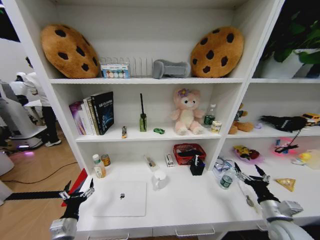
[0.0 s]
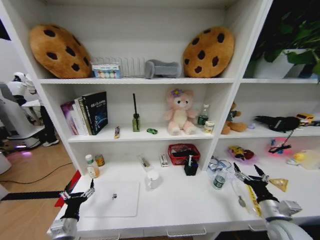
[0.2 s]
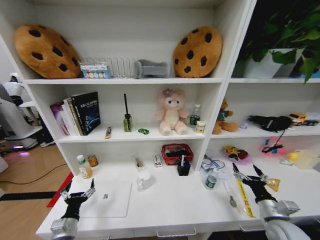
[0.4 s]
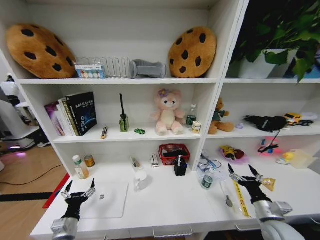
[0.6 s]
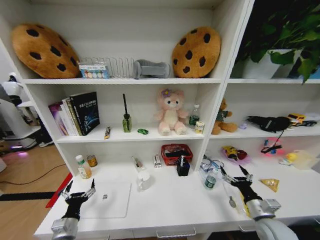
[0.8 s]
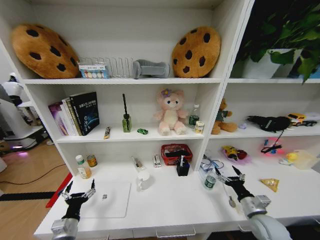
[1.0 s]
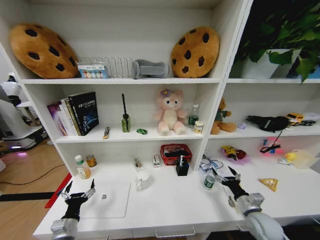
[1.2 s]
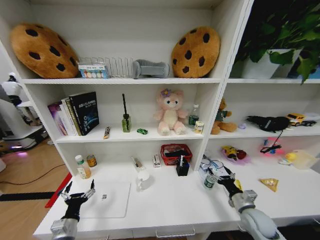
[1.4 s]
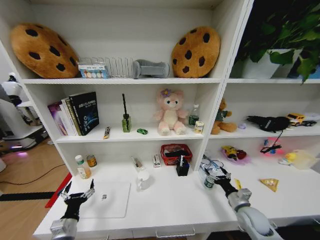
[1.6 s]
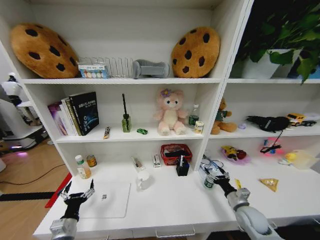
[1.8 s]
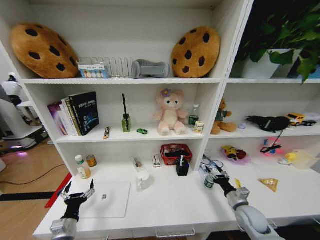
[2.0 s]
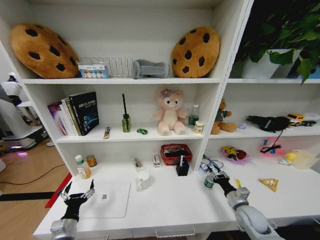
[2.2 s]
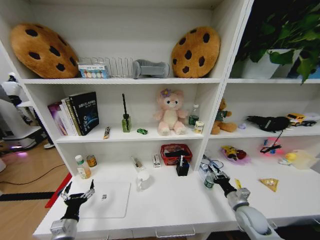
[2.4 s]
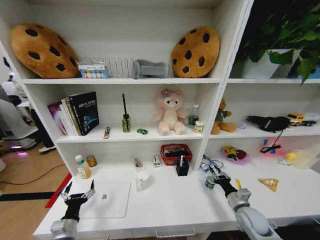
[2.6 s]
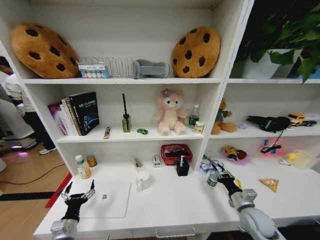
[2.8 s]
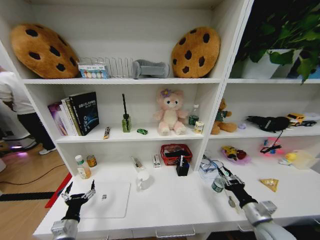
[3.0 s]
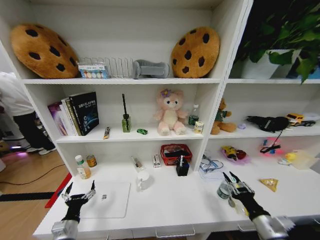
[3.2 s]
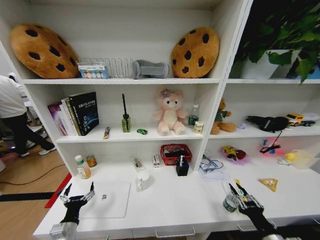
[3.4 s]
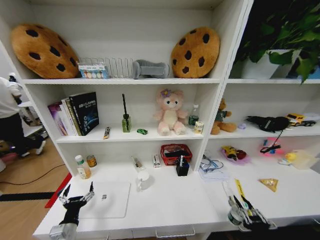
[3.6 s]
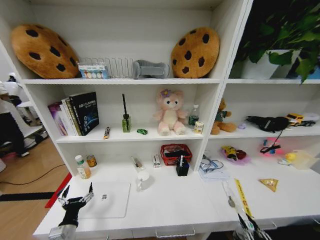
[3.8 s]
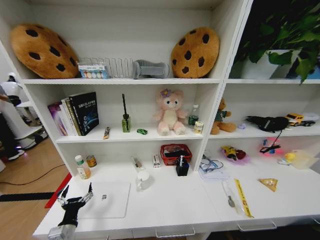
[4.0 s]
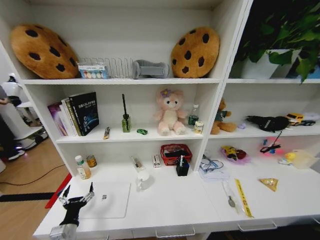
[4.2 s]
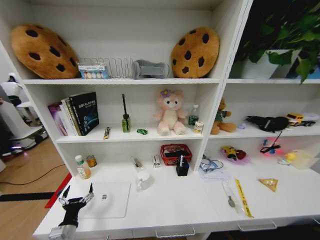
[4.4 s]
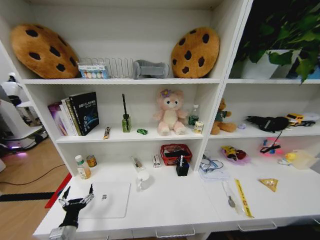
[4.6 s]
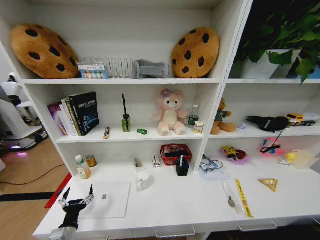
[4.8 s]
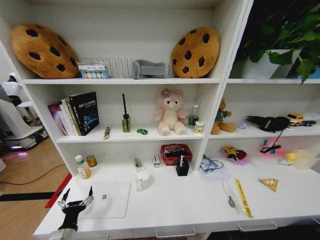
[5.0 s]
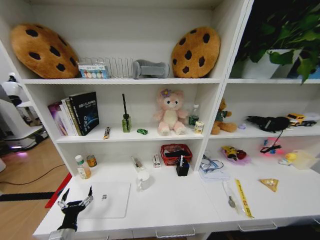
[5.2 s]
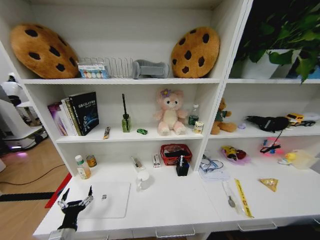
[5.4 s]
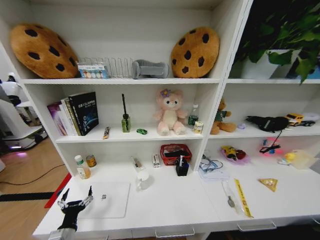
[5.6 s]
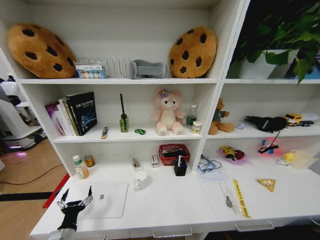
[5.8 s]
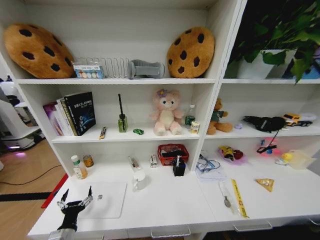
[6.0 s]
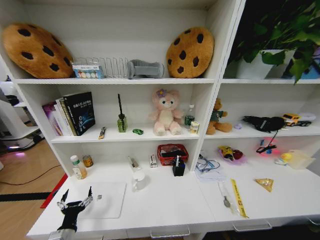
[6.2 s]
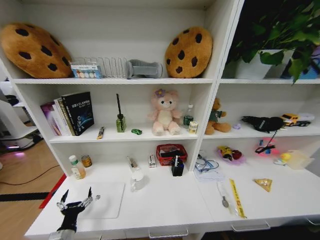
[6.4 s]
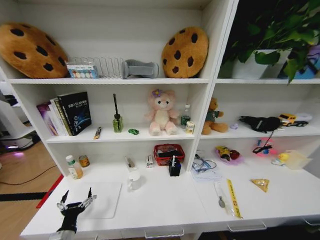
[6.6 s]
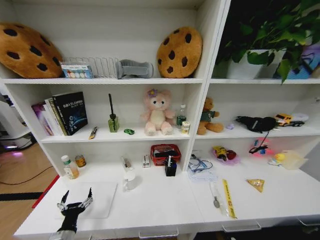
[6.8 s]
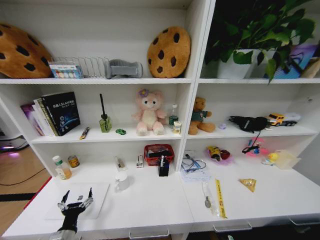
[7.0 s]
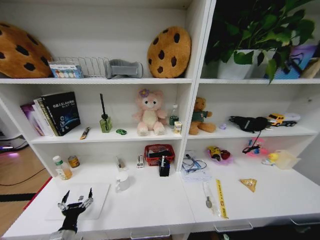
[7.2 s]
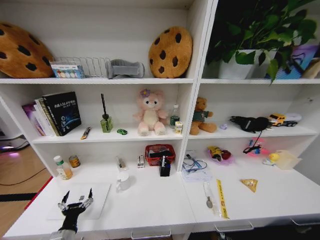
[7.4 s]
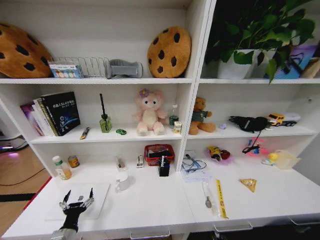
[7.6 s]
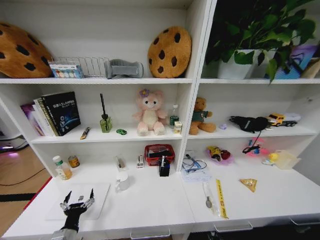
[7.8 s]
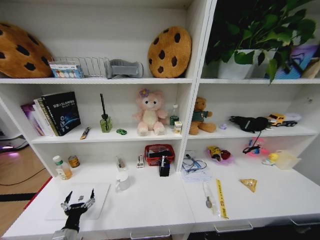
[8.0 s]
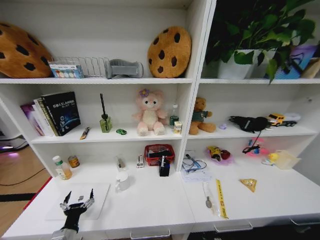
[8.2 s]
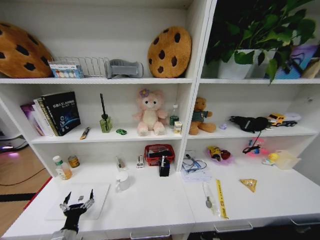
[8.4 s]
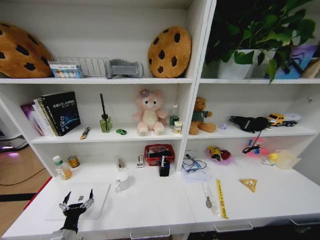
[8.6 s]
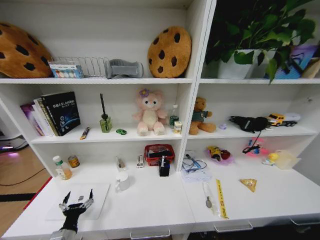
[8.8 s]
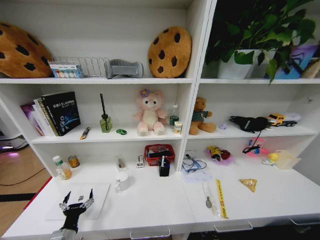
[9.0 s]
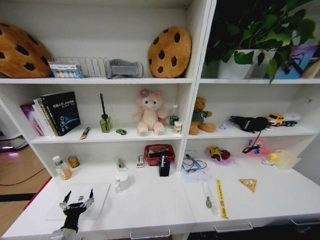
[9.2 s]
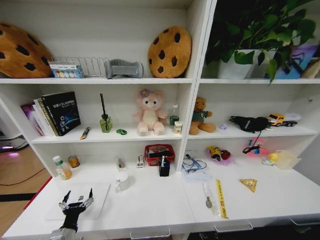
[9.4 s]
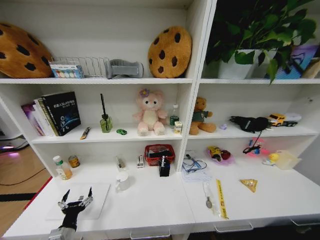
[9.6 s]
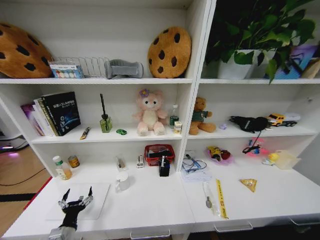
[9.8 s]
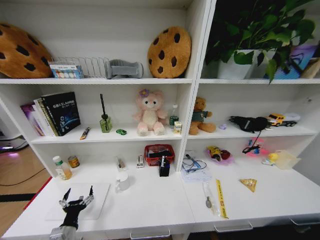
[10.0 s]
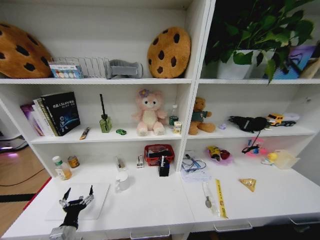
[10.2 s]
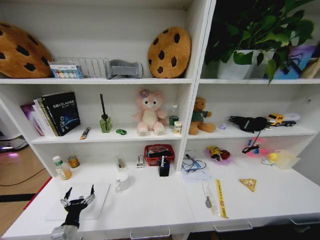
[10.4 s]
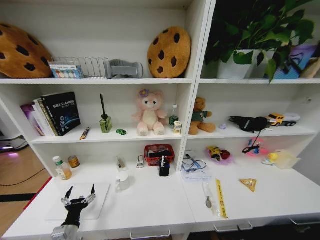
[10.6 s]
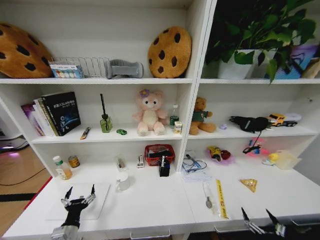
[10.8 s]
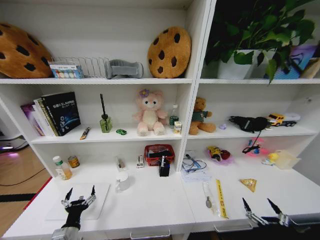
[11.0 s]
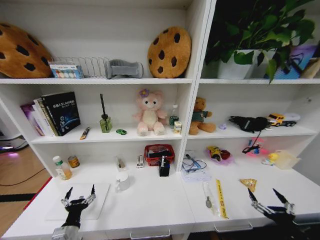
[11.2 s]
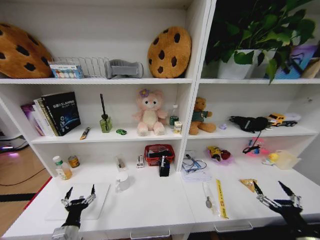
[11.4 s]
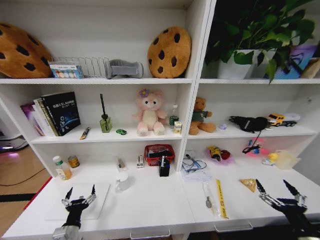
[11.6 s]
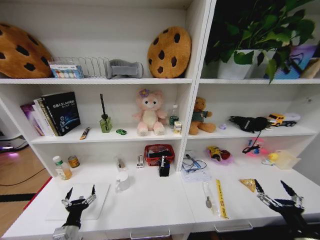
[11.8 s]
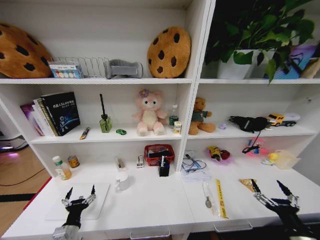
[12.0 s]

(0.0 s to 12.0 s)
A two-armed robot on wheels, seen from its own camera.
Task of the whole recording: Organize the objects on the table.
0.0 s - 1.6 s: The right gripper travels forward and downward by about 10 cm.
1.6 s - 3.0 s: The right gripper travels backward and upward by roughly 10 cm, and closes up.
3.0 s - 4.4 s: The right gripper shifts roughly 35 cm backward and downward.
4.4 s - 6.0 s: The right gripper heads downward, forward and to the right, covering some 15 cm.
6.0 s - 7.6 s: The right gripper heads forward and downward, covering roughly 10 cm.
9.0 s - 10.4 s: The right gripper shifts approximately 25 cm backward and upward, and opens up.
10.4 s - 12.0 s: The right gripper is displaced upward and forward by roughly 30 cm.

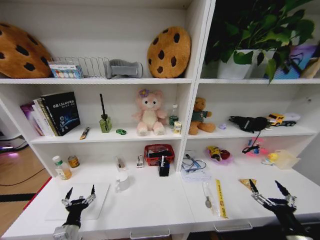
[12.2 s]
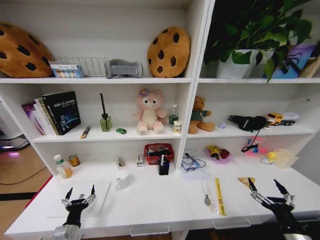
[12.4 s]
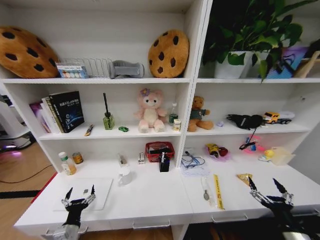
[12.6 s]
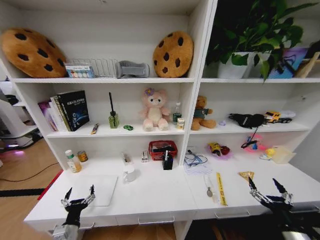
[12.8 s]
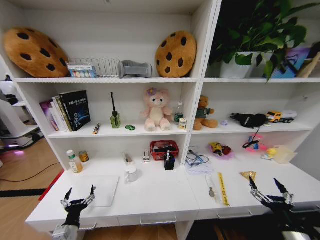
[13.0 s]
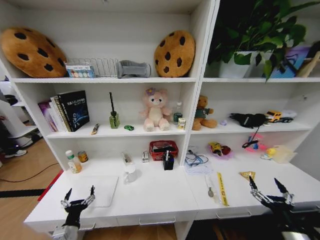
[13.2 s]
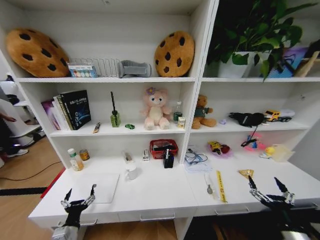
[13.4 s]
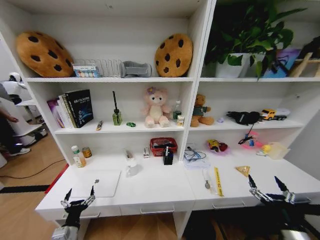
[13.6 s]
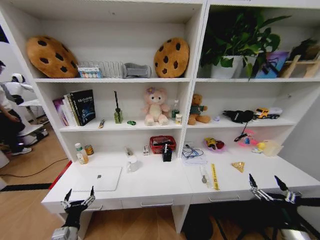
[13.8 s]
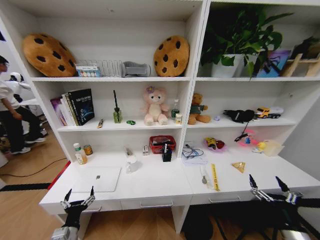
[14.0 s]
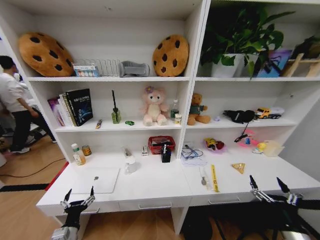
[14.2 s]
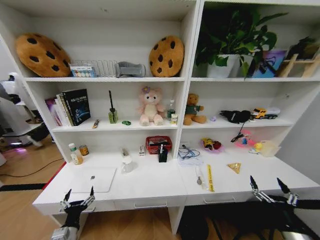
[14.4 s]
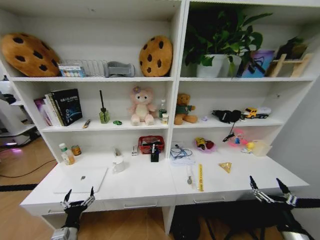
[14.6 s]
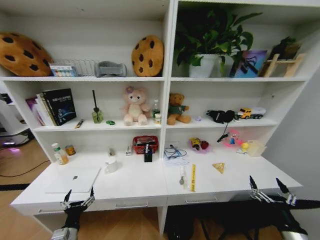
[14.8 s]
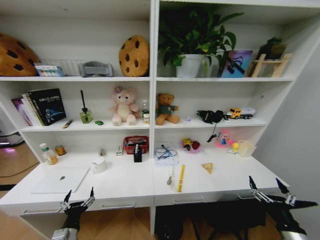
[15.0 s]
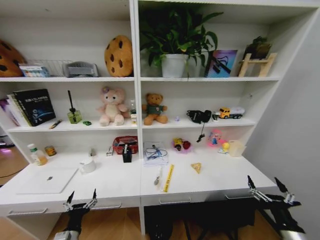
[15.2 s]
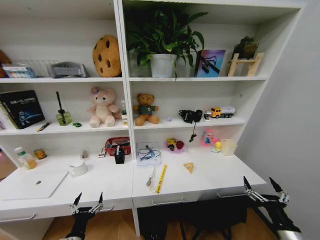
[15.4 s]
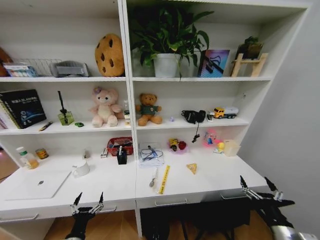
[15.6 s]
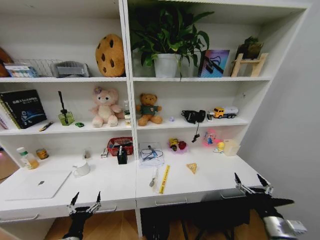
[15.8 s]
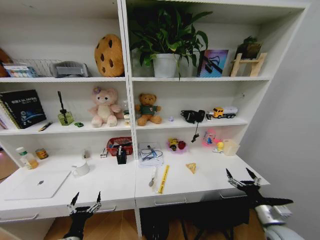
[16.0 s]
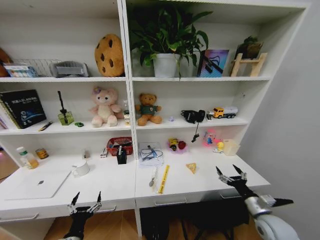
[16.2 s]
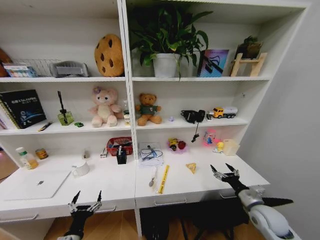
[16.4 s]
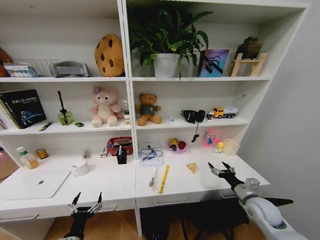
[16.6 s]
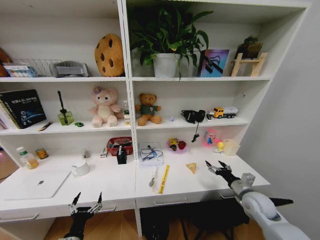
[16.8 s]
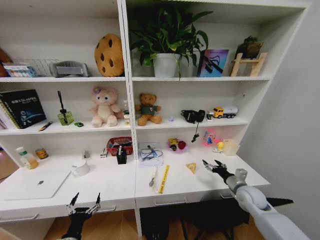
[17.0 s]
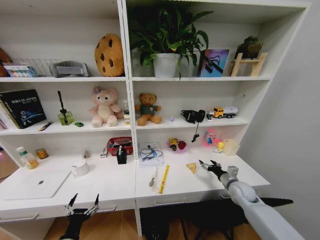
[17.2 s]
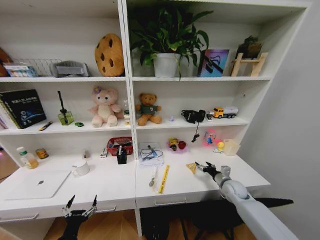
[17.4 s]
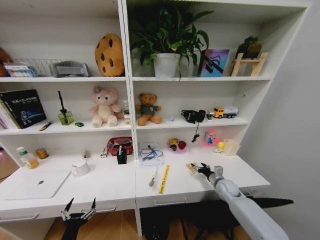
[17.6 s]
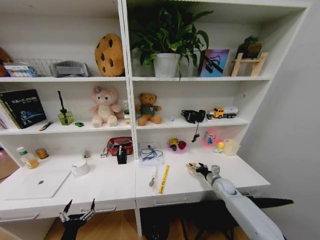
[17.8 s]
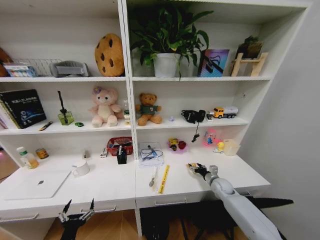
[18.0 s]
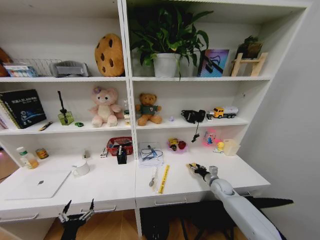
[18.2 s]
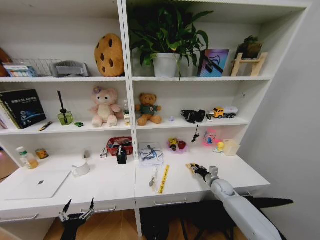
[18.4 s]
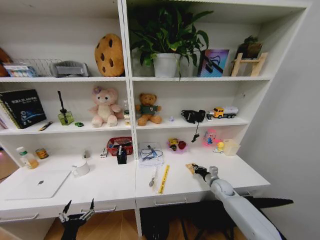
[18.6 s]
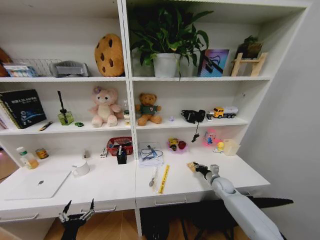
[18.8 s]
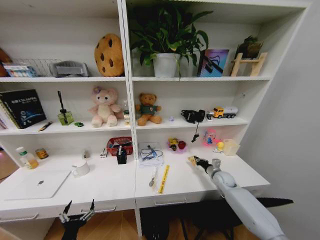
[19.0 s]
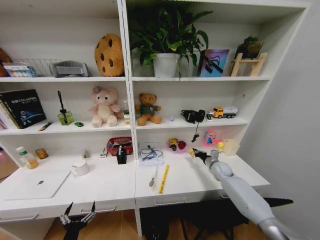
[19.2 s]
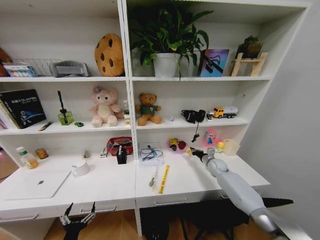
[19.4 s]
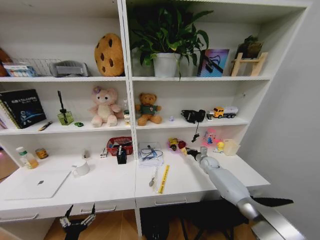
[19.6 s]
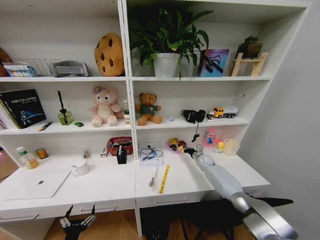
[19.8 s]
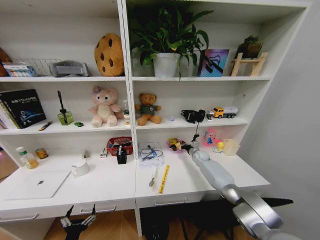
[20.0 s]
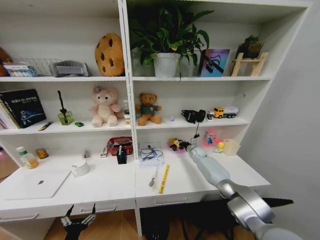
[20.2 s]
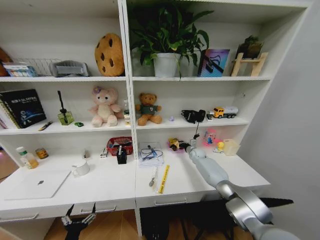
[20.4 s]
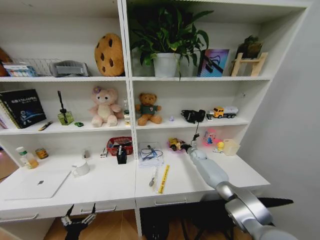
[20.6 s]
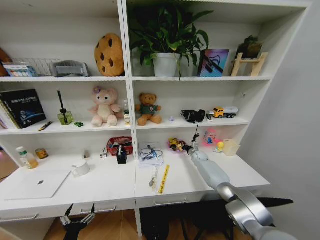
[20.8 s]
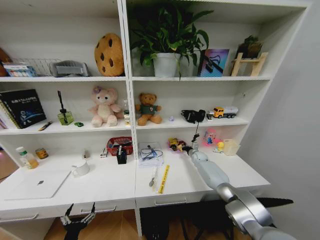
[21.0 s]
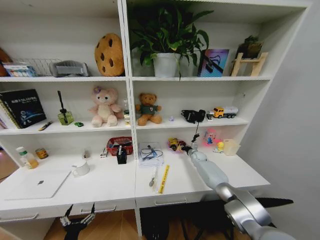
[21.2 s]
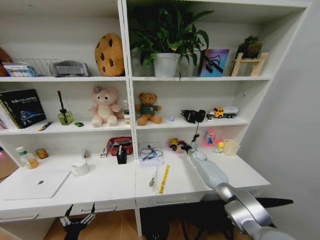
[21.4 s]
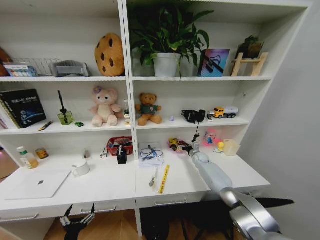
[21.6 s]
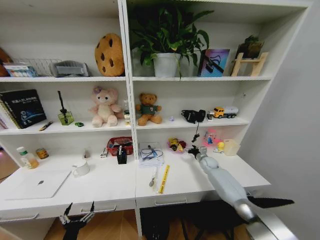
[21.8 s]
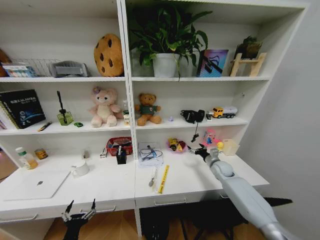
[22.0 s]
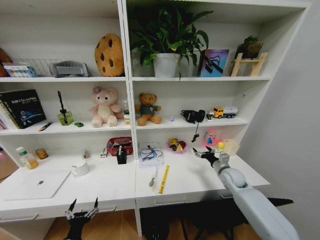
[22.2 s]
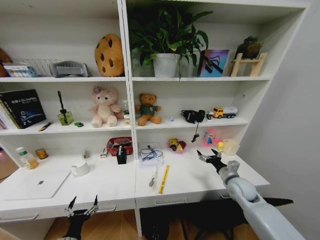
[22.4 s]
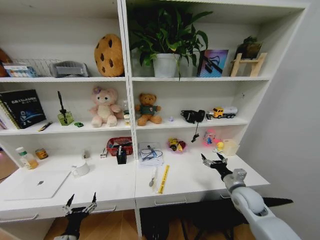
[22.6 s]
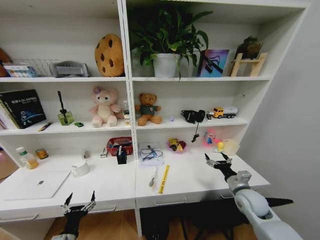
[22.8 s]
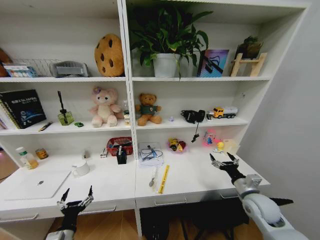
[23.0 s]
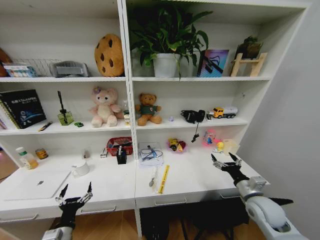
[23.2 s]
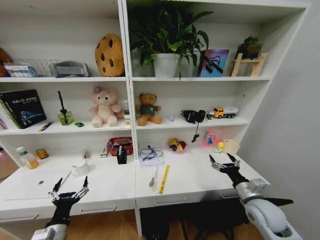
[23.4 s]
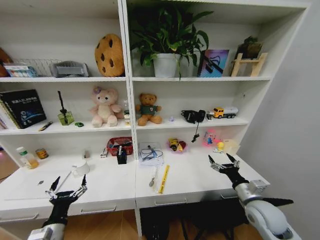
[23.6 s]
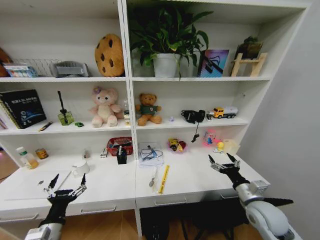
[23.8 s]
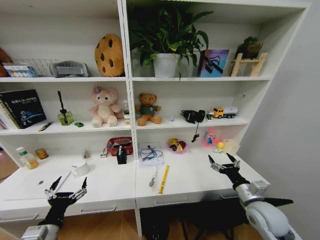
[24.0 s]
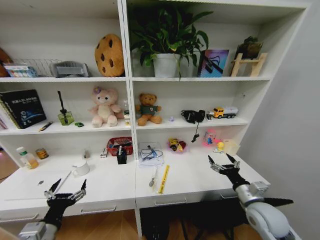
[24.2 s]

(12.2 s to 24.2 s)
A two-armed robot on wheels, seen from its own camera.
Task of the whole recording: Organize the objects on the table.
15.2 s - 16.6 s: The right gripper shifts some 15 cm forward.
16.6 s - 18.2 s: The right gripper is displaced forward and downward by about 15 cm, and closes up.
18.2 s - 19.8 s: The right gripper heads forward, covering some 15 cm, and closes its fingers.
19.8 s - 21.2 s: The right gripper moves approximately 5 cm.
21.2 s - 22.6 s: The right gripper moves backward, roughly 30 cm, and opens.
22.6 s - 24.2 s: The left gripper shifts approximately 15 cm upward. Meanwhile the right gripper moves backward, about 5 cm.
